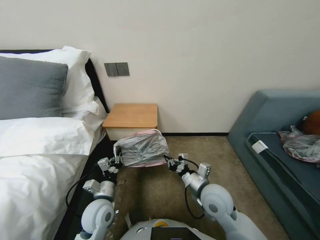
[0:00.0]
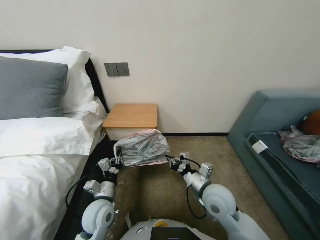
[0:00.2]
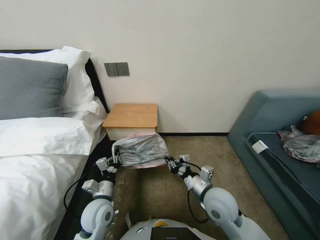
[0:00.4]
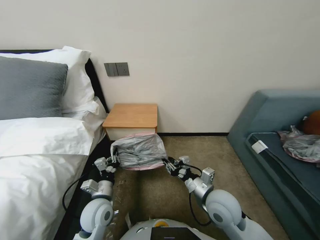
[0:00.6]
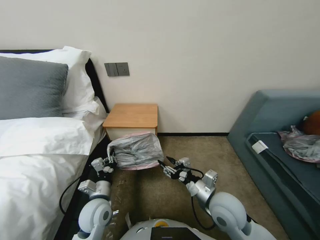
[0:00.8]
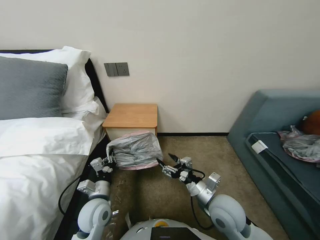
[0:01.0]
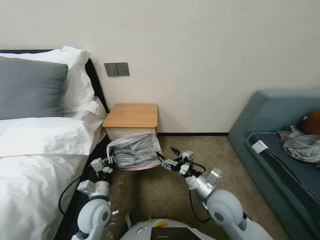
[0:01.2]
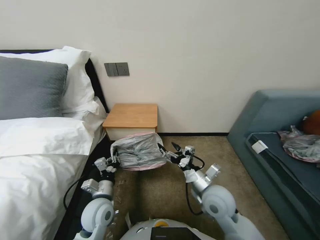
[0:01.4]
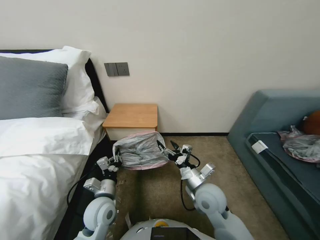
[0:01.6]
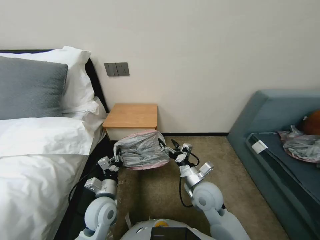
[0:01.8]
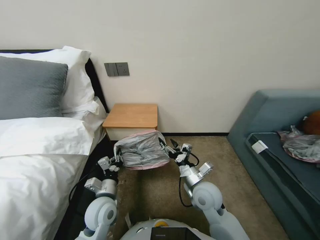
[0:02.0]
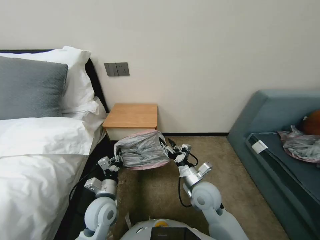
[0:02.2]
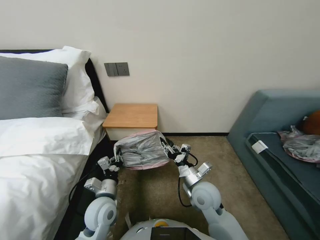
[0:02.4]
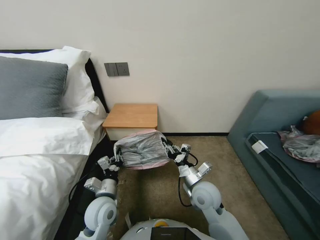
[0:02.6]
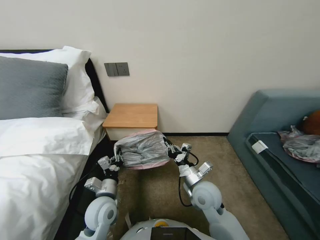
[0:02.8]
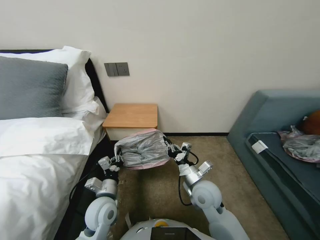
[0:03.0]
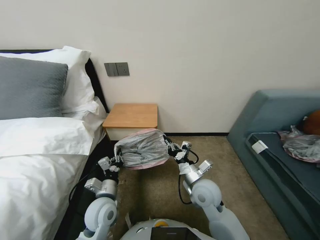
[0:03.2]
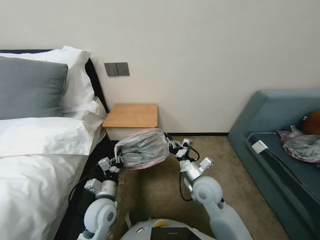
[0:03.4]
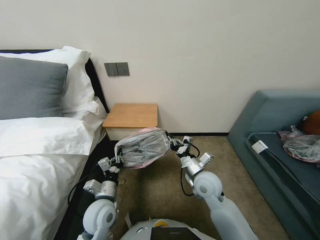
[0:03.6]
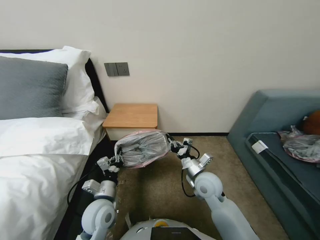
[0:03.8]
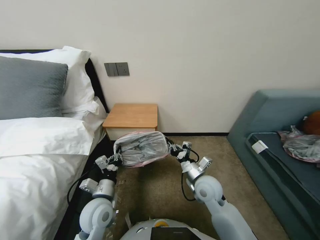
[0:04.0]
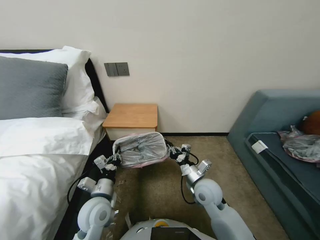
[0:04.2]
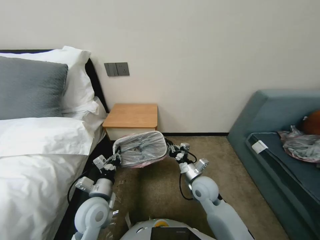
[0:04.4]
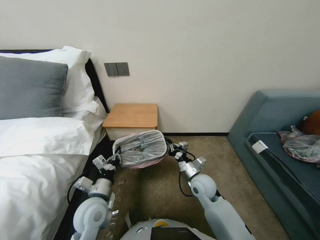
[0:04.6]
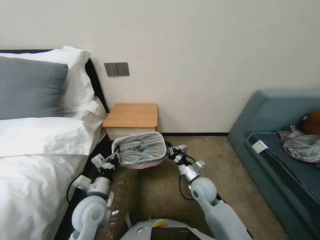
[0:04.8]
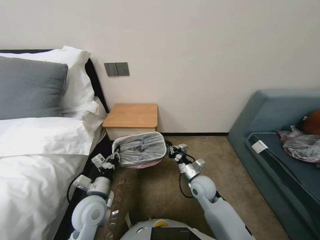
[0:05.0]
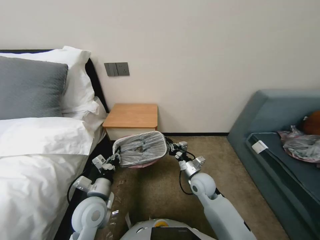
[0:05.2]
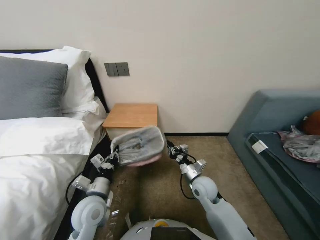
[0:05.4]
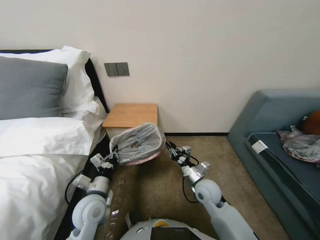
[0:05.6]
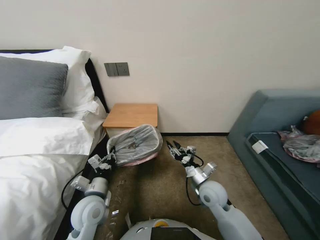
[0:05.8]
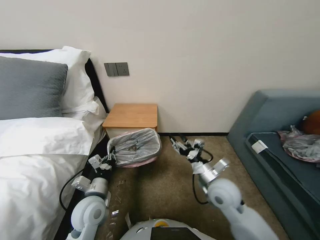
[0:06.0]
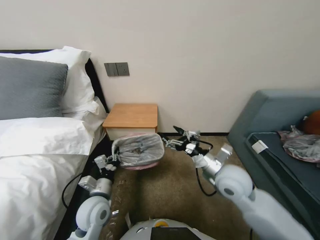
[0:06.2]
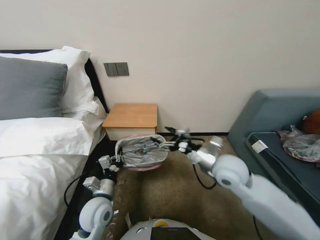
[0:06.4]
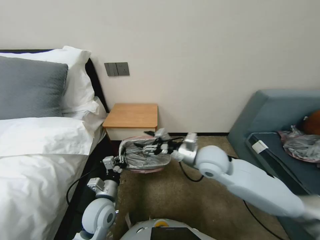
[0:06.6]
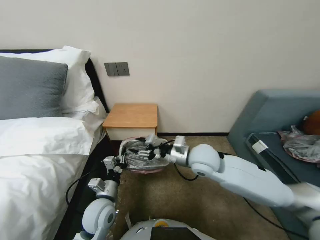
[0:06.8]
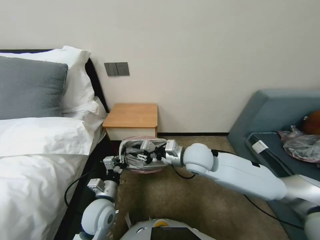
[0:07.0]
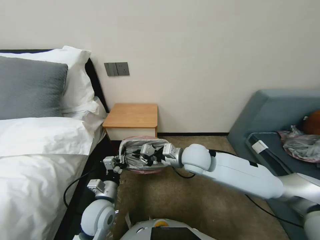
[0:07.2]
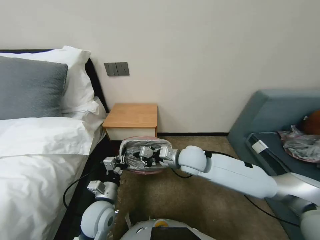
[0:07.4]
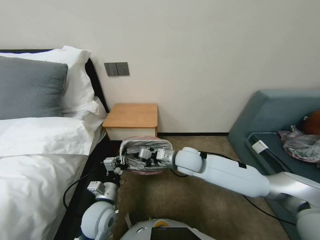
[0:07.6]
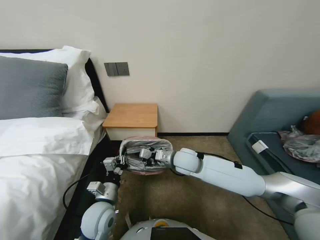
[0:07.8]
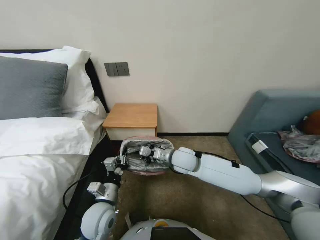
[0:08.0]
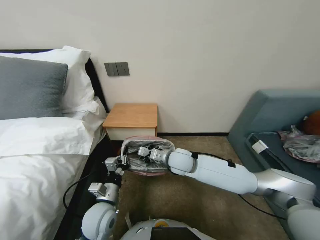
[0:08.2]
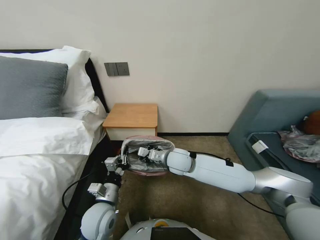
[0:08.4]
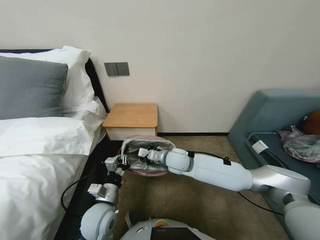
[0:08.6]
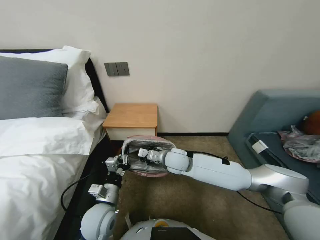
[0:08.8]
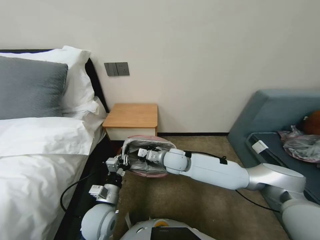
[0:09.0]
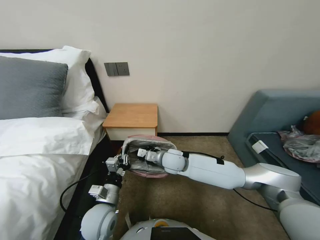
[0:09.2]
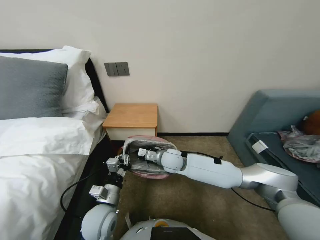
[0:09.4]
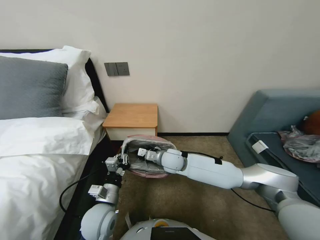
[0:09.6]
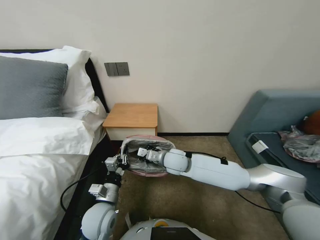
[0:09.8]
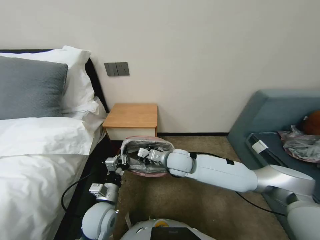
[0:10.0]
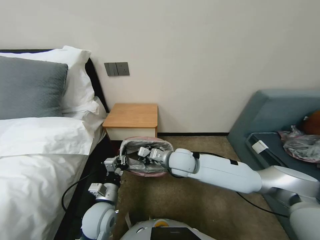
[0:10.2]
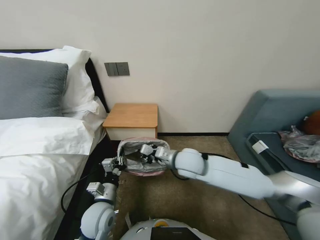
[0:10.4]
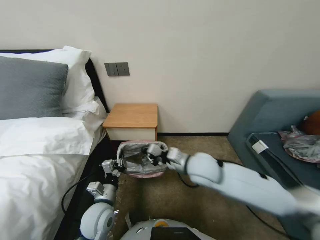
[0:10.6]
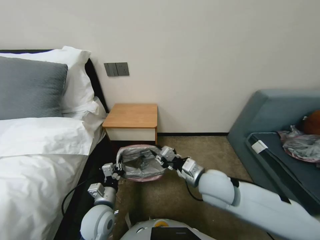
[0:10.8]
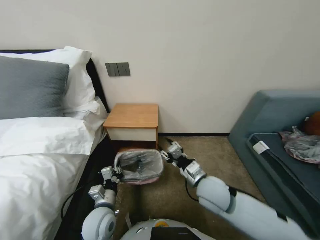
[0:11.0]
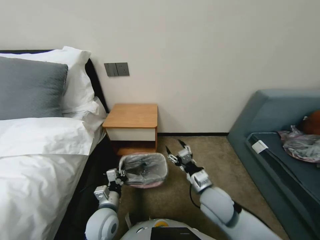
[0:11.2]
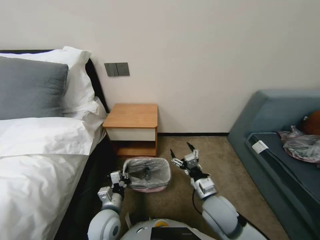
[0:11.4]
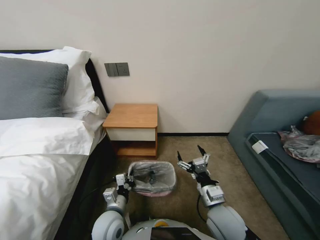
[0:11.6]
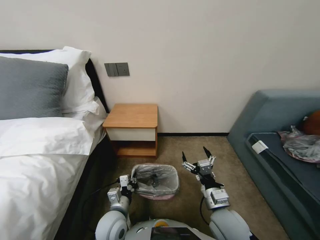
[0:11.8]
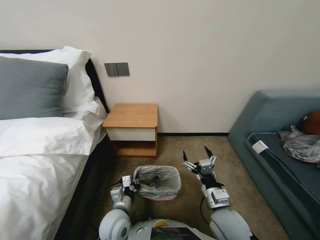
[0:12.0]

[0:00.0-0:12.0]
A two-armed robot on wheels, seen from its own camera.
Task of the whole recording: Pick up the garbage bag from the table and place it over the trash can.
0:00.0 to 0:01.6: The right gripper opens.
0:01.6 to 0:03.0: The right gripper closes its fingers.
0:03.0 to 0:04.4: The grippers make only small movements.
0:04.4 to 0:06.0: The right gripper opens its fingers.
0:06.0 to 0:07.6: The right gripper travels to the left, forward and upward by approximately 15 cm, and closes up.
0:07.6 to 0:09.0: The right gripper changes place by roughly 5 cm.
0:09.0 to 0:10.4: The right gripper moves some 5 cm.
0:10.4 to 0:12.0: The left gripper ends up roughly 5 cm from where it was, while the right gripper travels backward, to the right and downward by approximately 20 cm, and opens up.

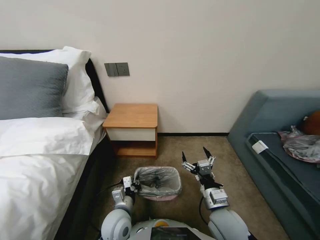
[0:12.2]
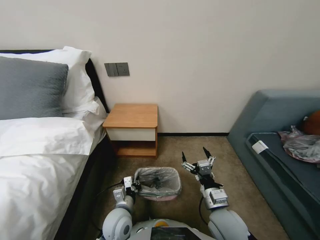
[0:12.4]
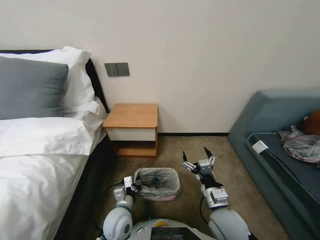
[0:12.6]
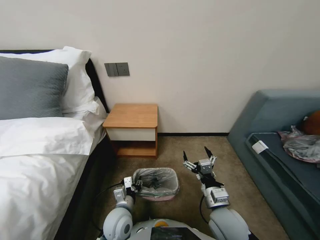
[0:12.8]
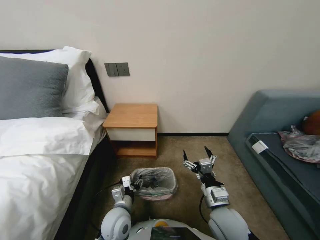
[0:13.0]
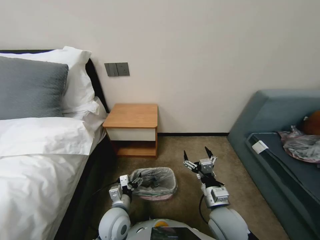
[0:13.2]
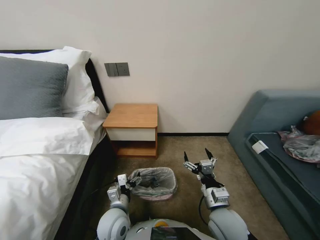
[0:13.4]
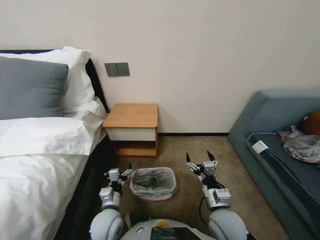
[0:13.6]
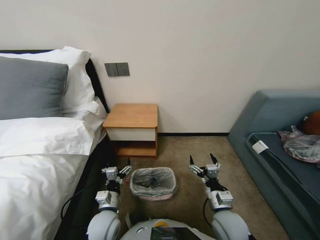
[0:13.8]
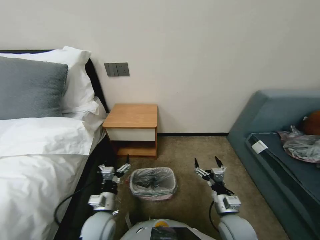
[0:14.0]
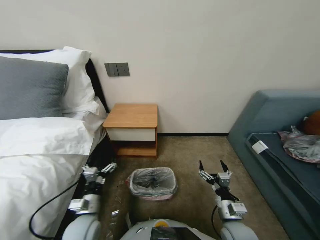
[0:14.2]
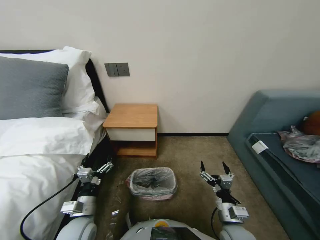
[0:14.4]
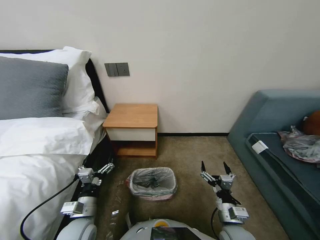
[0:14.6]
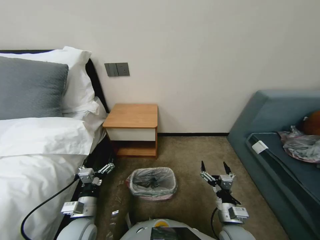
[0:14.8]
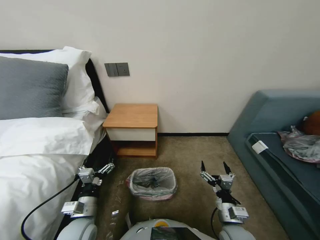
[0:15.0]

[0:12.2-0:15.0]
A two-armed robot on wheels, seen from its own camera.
Task of the whole recording: Pick up the garbage bag from the table and place it over the trash can.
0:12.2 to 0:13.6: The left gripper opens its fingers.
0:13.6 to 0:15.0: The left gripper heads to the left, covering approximately 10 cm; the right gripper travels downward by approximately 5 cm.

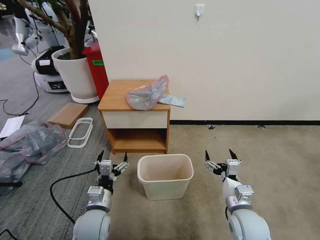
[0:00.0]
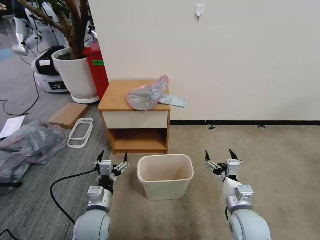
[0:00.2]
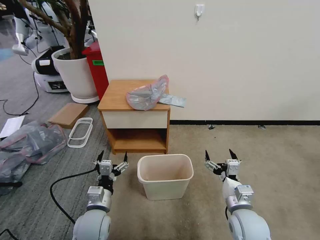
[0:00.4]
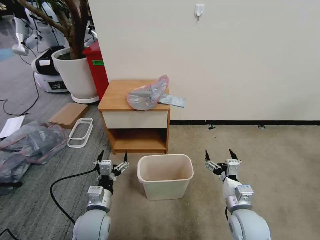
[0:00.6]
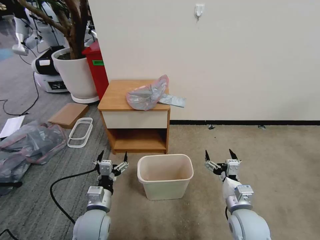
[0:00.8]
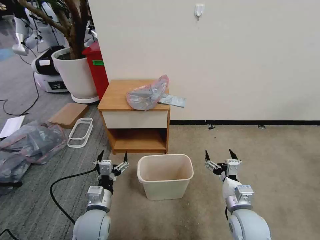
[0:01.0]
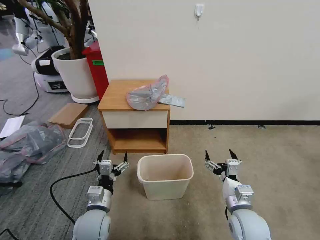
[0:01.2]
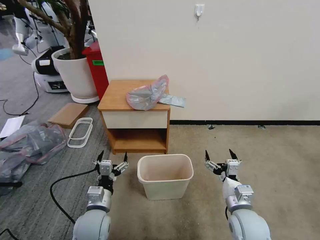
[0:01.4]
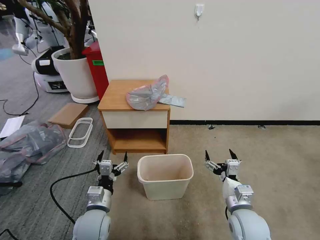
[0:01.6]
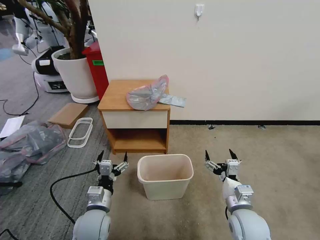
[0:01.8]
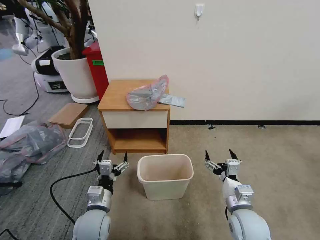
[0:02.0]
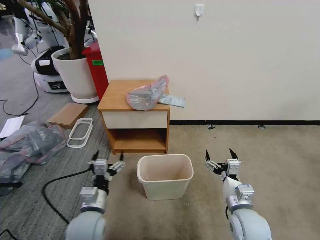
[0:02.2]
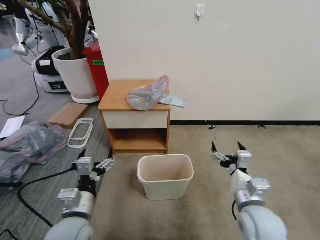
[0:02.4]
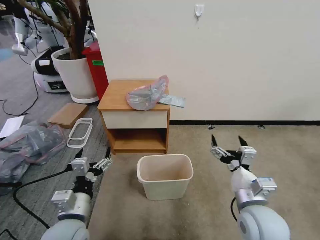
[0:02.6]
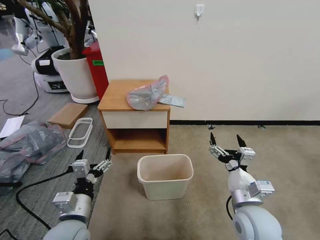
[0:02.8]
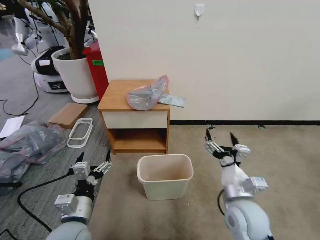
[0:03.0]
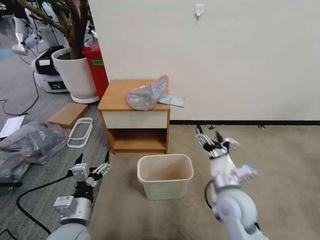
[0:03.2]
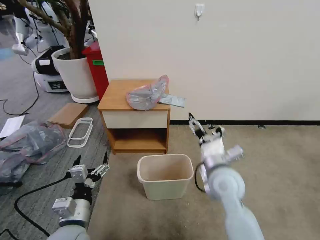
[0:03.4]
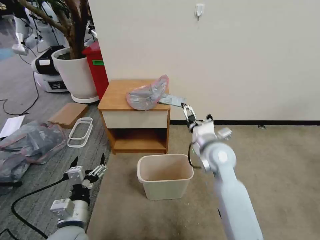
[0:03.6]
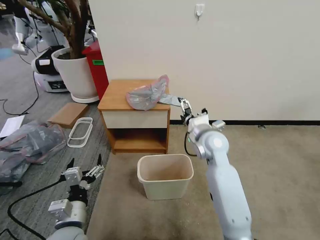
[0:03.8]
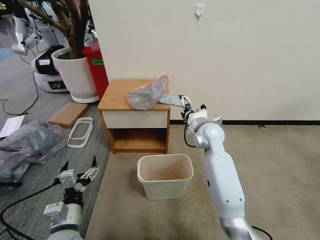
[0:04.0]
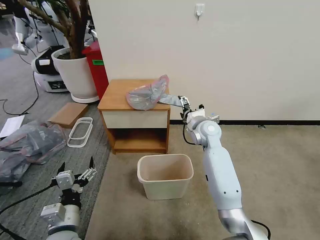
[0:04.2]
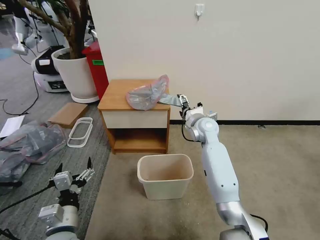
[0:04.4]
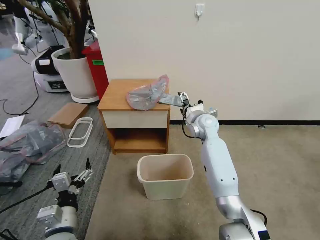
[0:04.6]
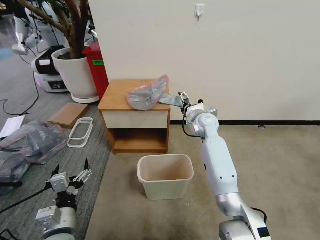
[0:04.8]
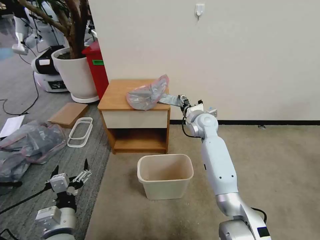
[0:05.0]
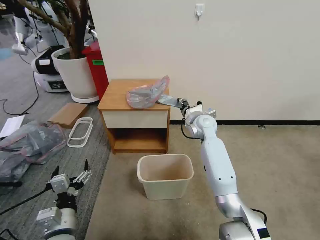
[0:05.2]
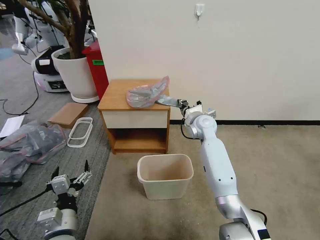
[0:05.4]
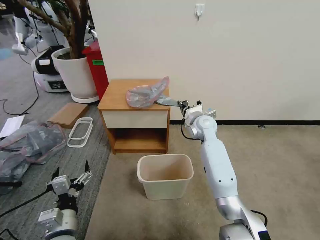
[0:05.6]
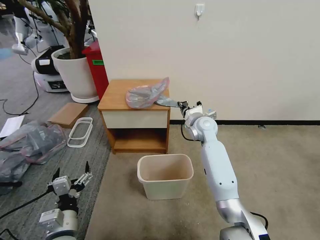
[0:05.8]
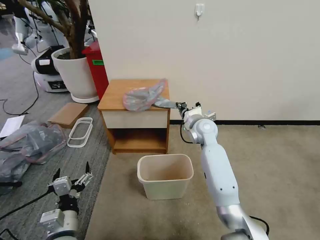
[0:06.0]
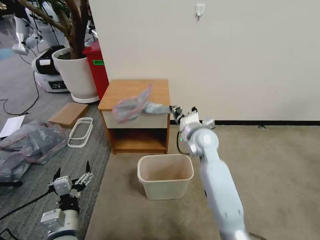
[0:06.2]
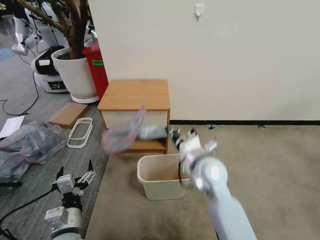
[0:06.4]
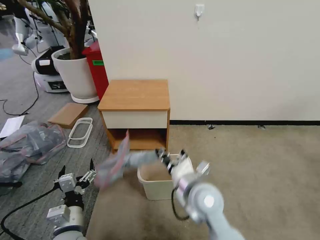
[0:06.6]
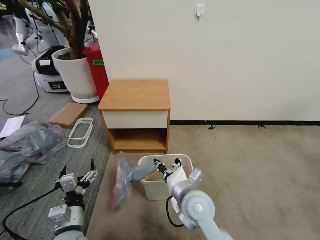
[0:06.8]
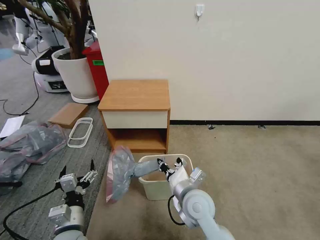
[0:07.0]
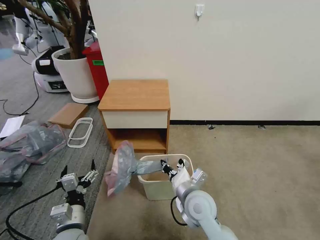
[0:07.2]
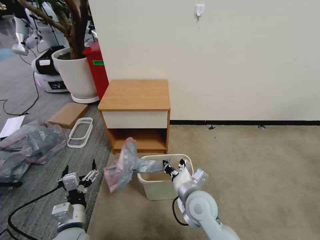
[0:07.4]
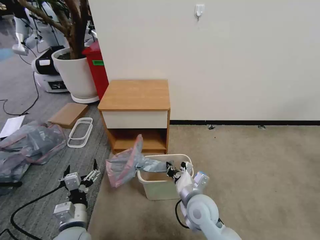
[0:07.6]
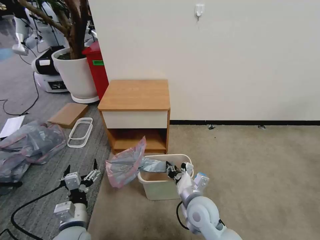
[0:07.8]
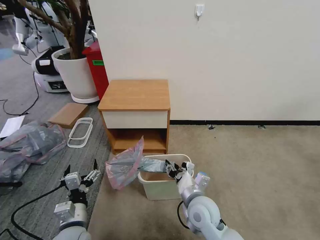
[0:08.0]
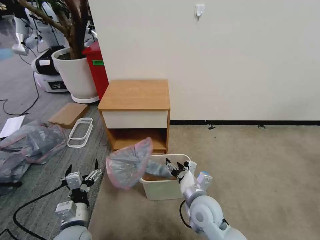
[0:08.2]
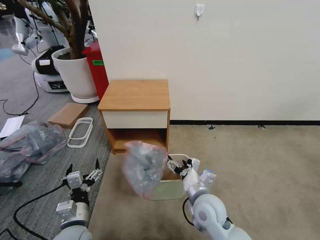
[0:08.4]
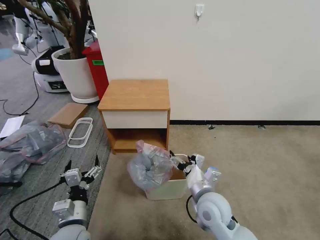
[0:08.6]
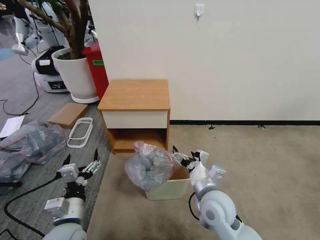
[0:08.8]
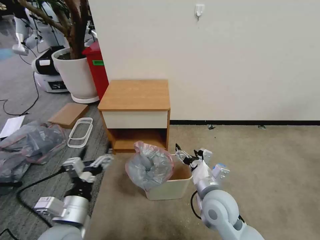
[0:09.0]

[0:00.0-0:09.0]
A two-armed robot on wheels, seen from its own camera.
Task of the whole recording: Pick up the garbage bag from the table and place it over the trash can.
0:01.6 to 0:03.0: The two grippers go some 5 cm upward.
0:03.0 to 0:04.4: The right gripper heads forward, covering roughly 30 cm.
0:04.4 to 0:06.0: The right gripper closes its fingers.
0:06.0 to 0:07.6: The right gripper travels backward and downward by approximately 25 cm.
0:07.6 to 0:09.0: The left gripper is displaced upward by some 10 cm. Meanwhile the right gripper ends up roughly 5 cm from where it was, and opens its fingers.
